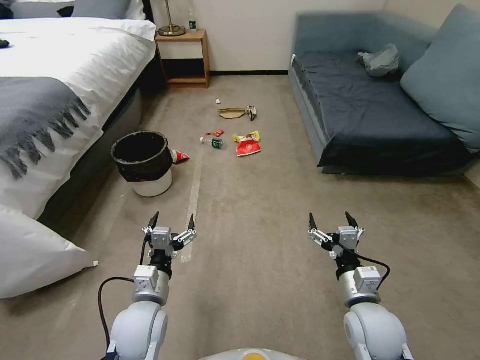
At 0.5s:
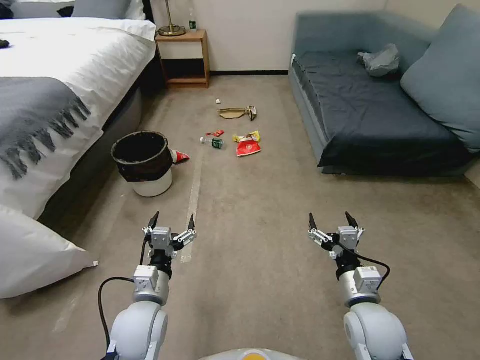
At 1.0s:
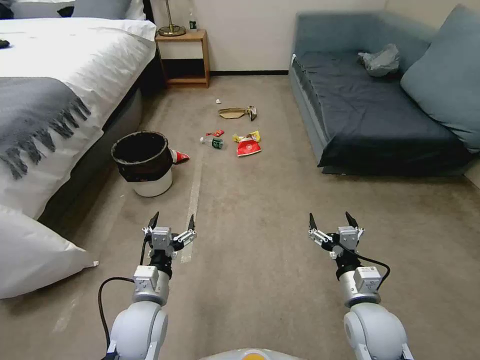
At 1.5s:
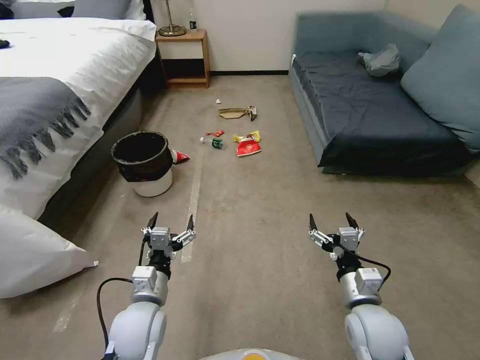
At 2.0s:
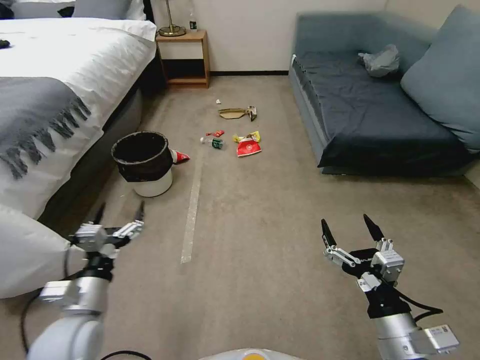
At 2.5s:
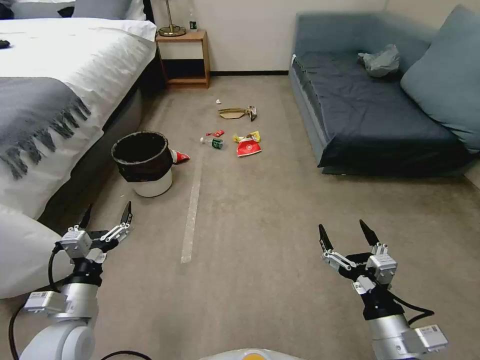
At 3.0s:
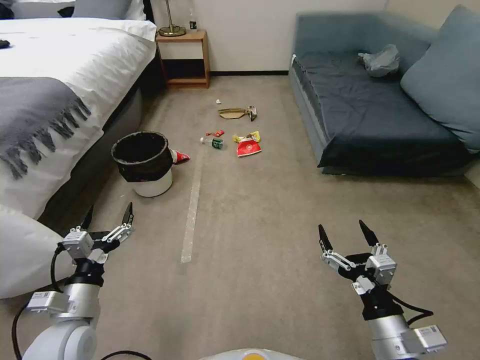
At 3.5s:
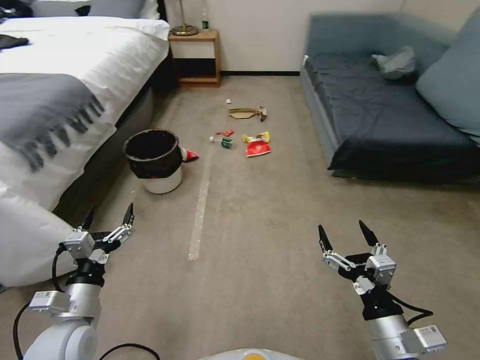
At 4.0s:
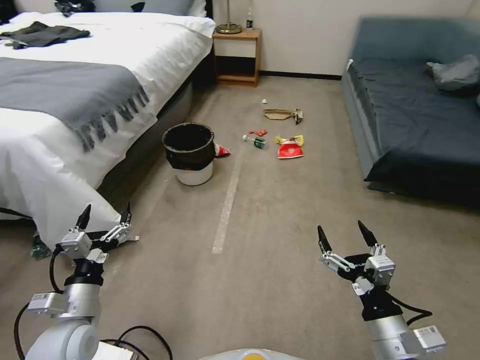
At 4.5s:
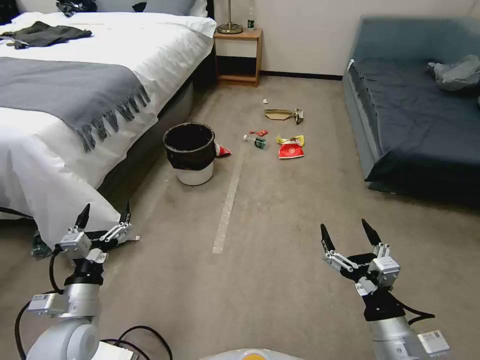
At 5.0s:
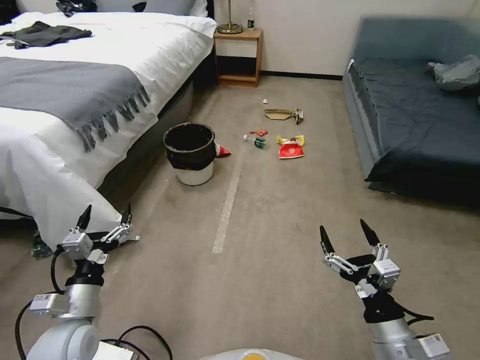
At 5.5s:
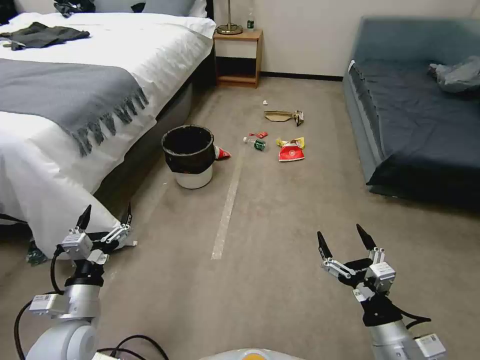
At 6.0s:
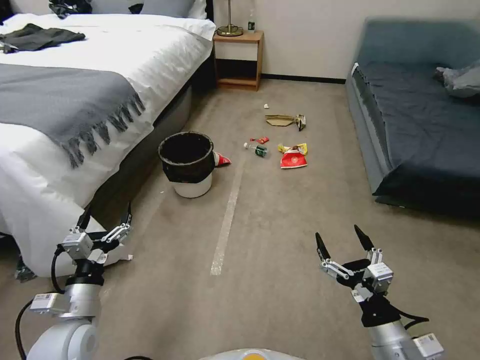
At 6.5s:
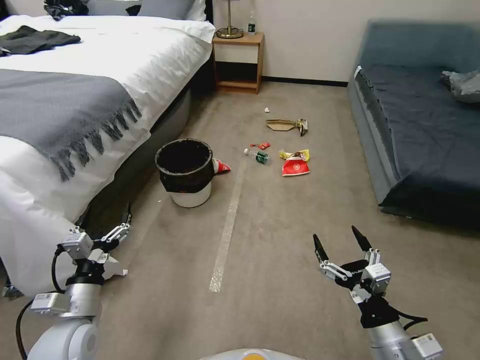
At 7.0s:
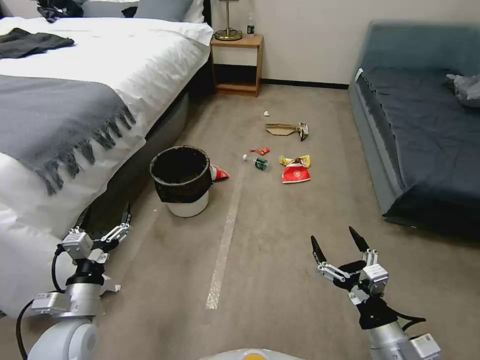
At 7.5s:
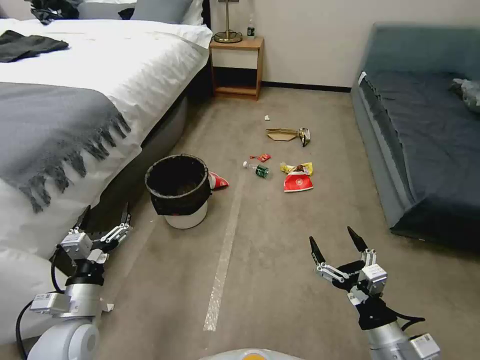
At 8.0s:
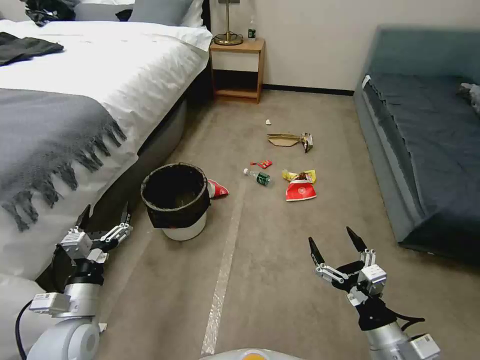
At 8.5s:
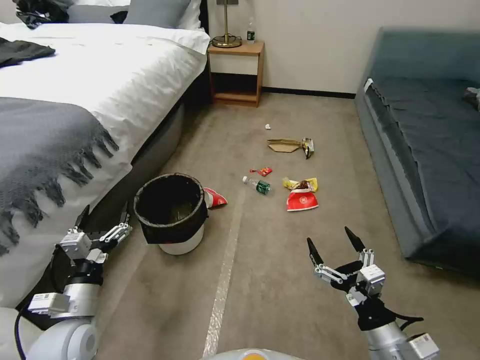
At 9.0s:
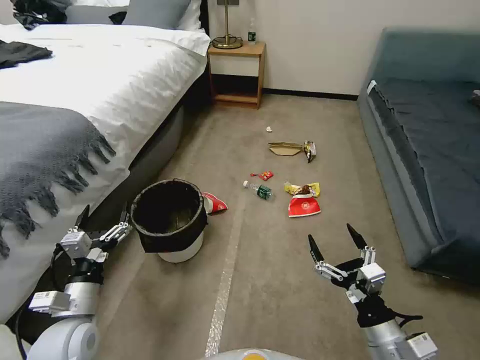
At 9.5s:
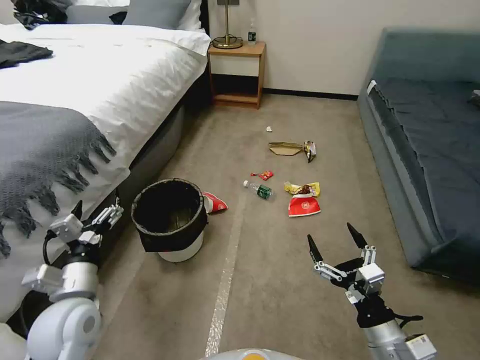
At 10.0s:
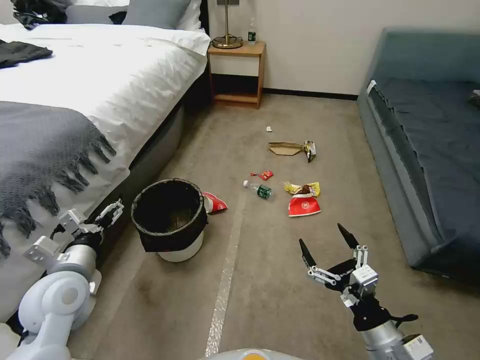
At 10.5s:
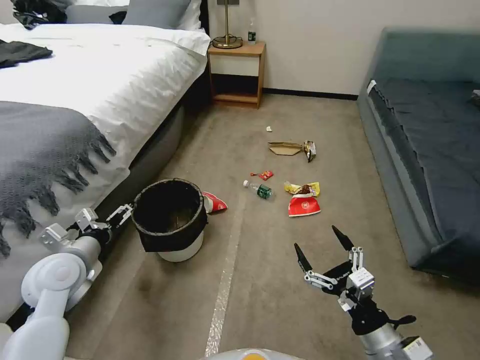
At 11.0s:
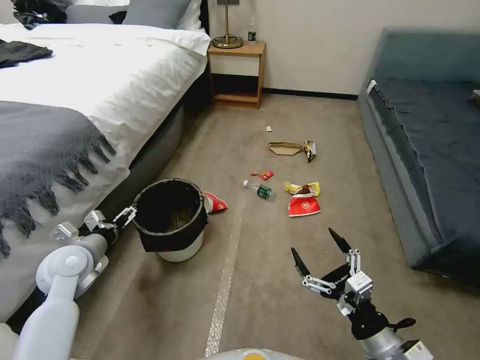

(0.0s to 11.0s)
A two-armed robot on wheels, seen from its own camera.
Task of the whole recording: Pick up the trash can from the floor.
9.0s - 11.0s: The left gripper shifts roughly 10 cm forward.

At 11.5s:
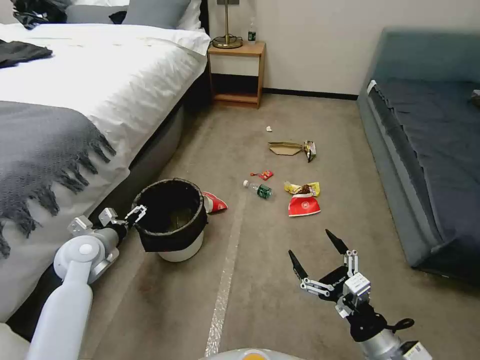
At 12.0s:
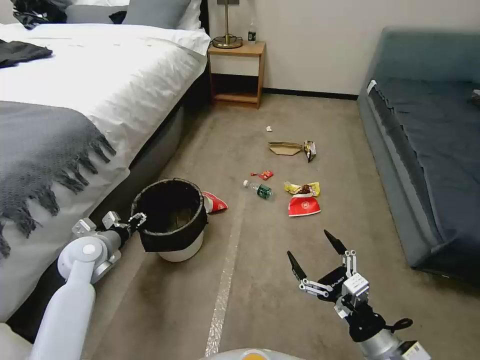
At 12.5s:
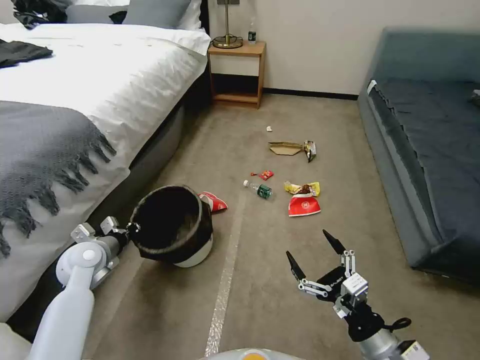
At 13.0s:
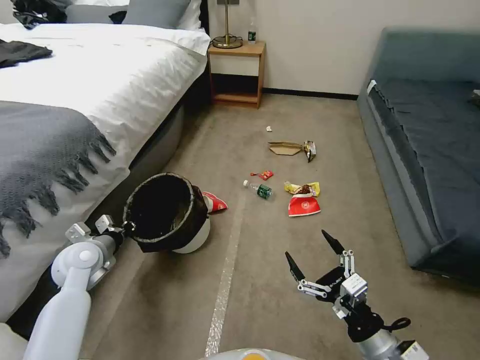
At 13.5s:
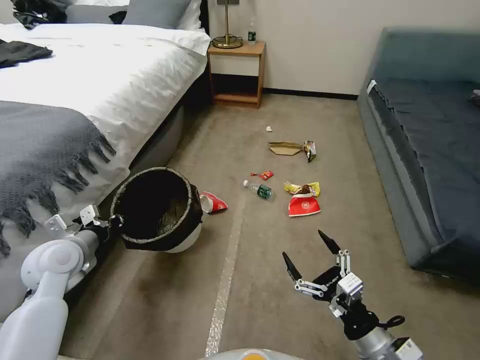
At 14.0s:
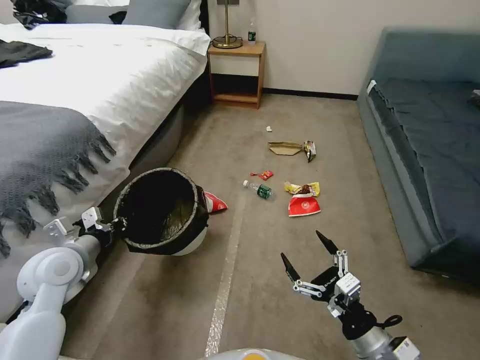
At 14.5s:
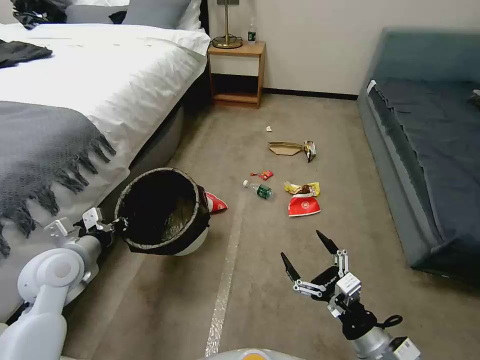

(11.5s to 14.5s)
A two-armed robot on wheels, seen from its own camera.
Task of the whole recording: Pick up the trash can from the floor.
11.5s - 13.0s: The left gripper closes.
13.0s - 14.5s: The left gripper travels upward by about 5 cm.

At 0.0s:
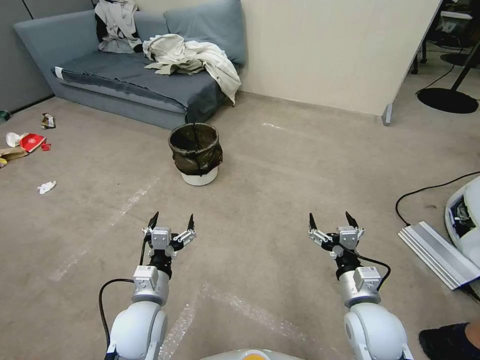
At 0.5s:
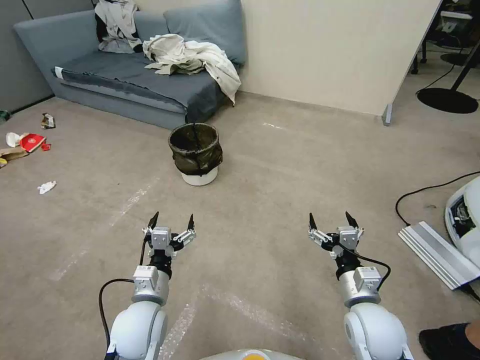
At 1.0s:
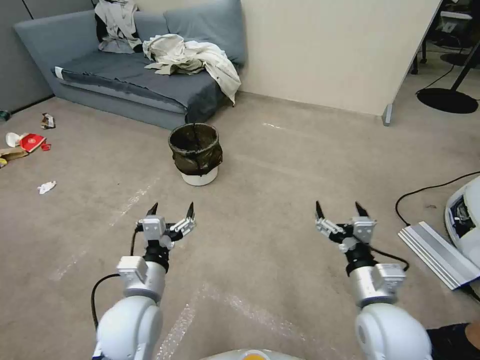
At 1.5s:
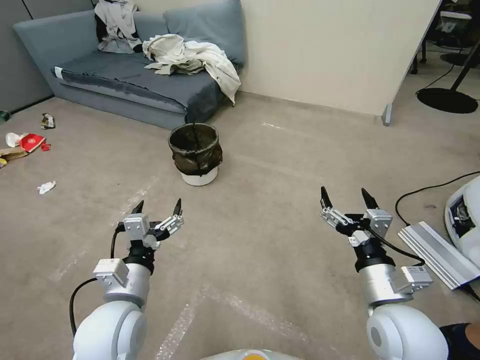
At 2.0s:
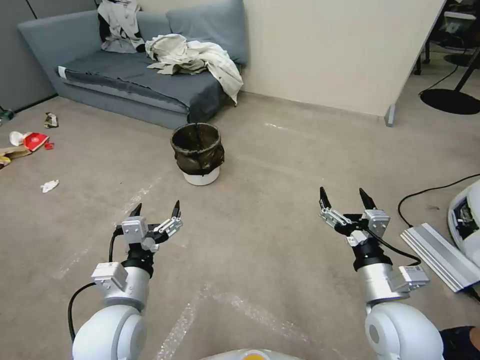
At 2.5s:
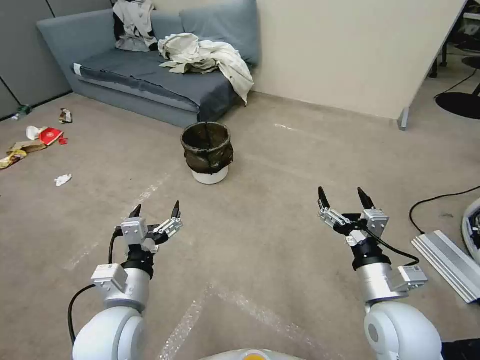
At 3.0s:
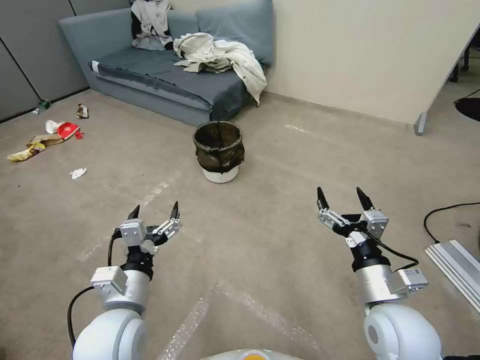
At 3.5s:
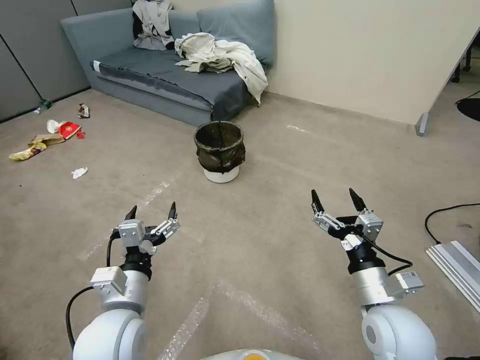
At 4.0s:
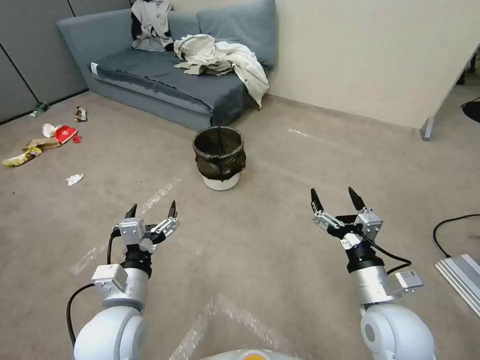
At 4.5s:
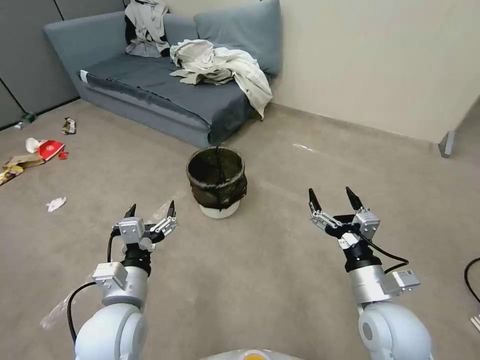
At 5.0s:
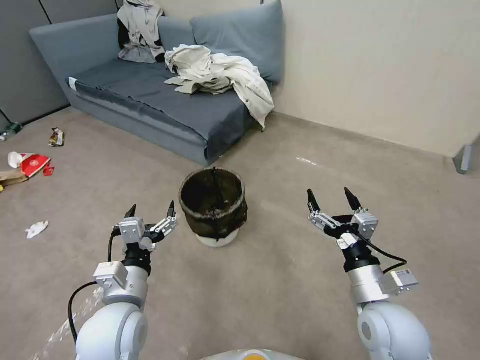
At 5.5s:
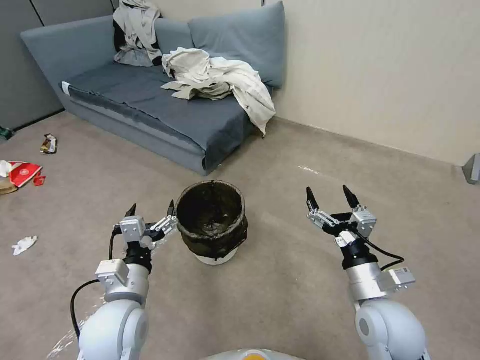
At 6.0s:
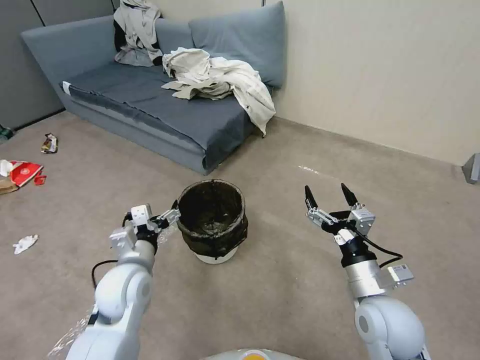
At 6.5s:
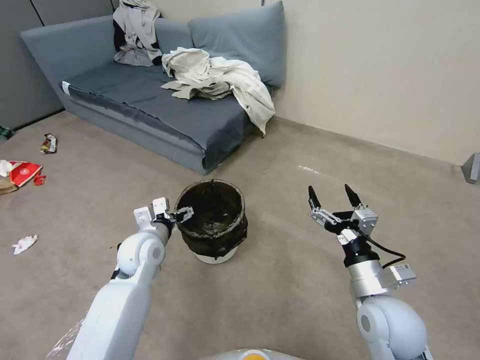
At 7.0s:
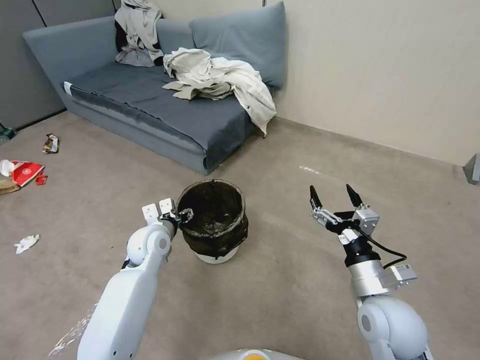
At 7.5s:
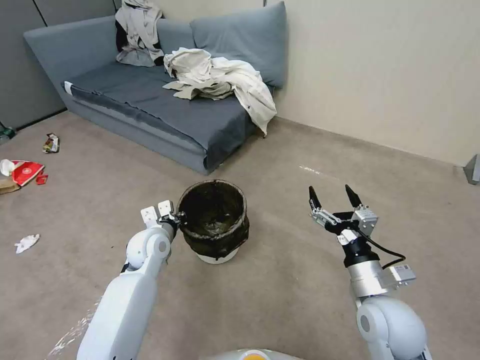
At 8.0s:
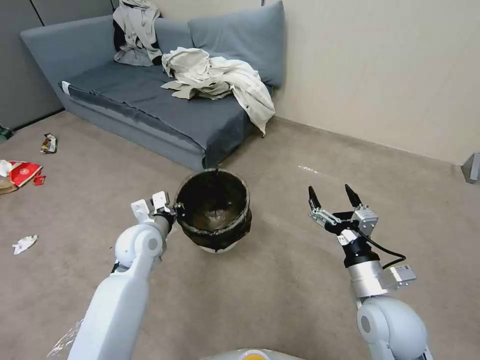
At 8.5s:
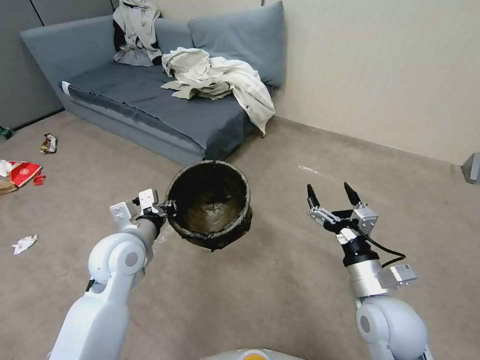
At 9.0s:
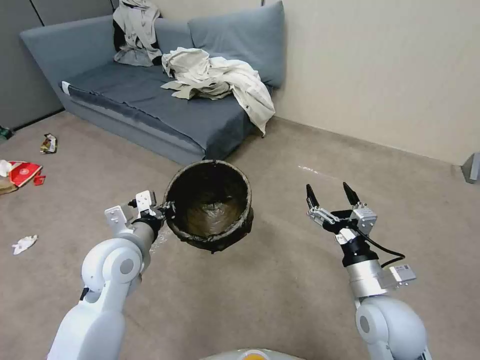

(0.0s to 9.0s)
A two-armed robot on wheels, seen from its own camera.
Task of the whole recording: Pick up the trash can from the floor.
4.5s - 7.0s: The left gripper heads forward, covering some 20 cm, and closes its fingers.
7.0s - 9.0s: The left gripper moves upward and backward, about 15 cm, and closes.

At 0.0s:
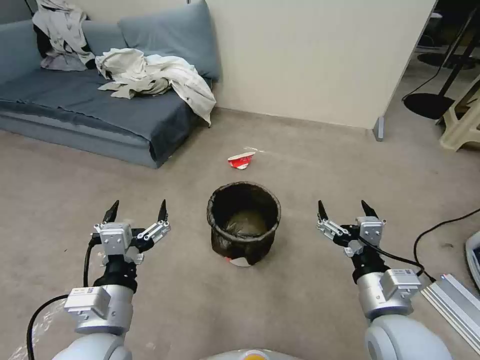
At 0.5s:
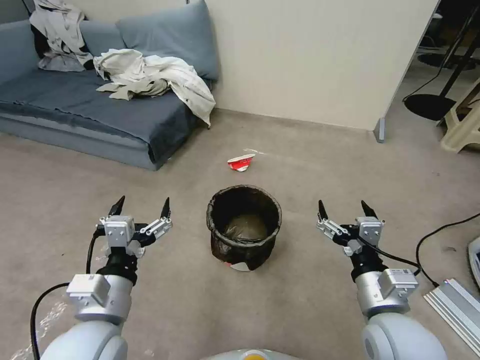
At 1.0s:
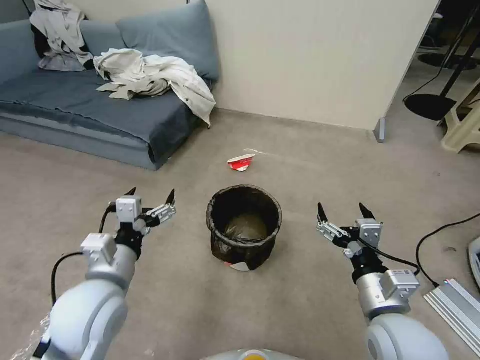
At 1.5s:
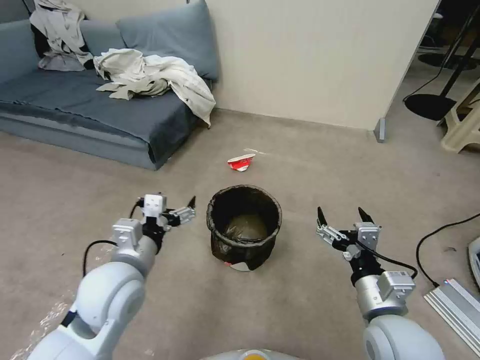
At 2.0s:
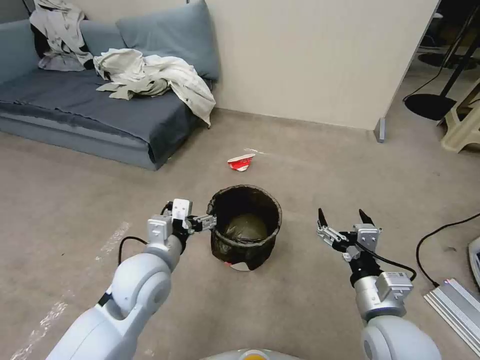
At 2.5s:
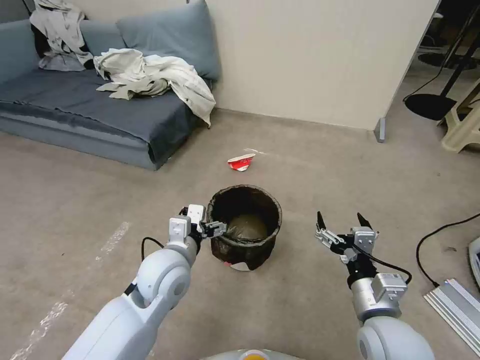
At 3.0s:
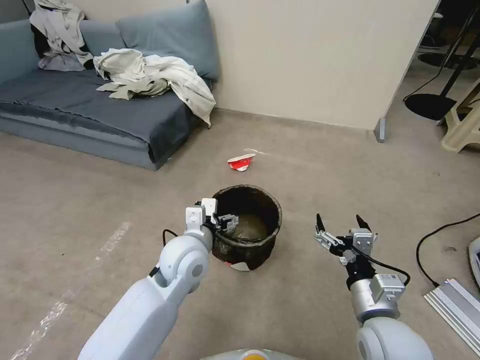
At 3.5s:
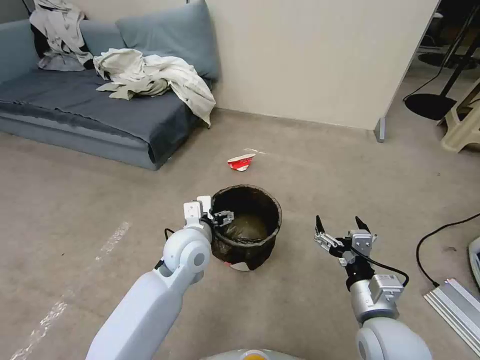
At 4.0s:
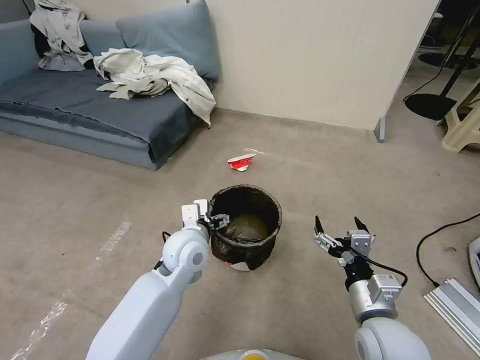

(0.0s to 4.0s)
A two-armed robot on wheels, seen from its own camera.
Task of the whole recording: Pick up the trash can from the floor.
0.0s - 2.0s: The left gripper travels forward by approximately 10 cm.
2.0s - 4.0s: The left gripper is displaced forward and to the right by roughly 10 cm.
